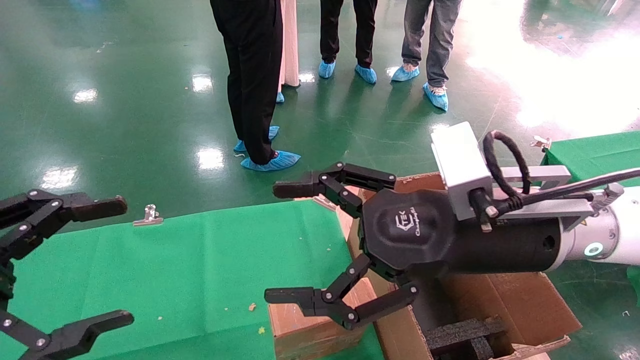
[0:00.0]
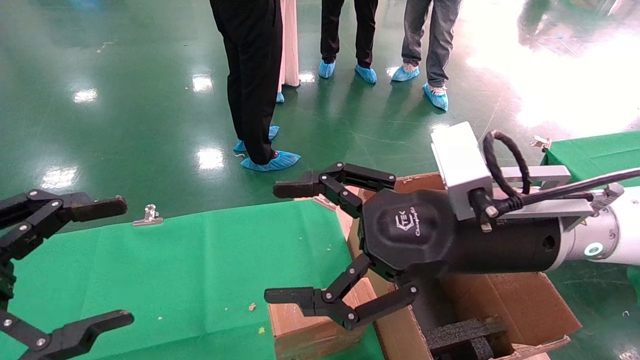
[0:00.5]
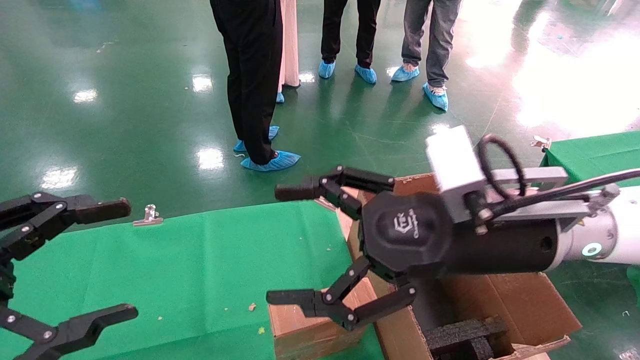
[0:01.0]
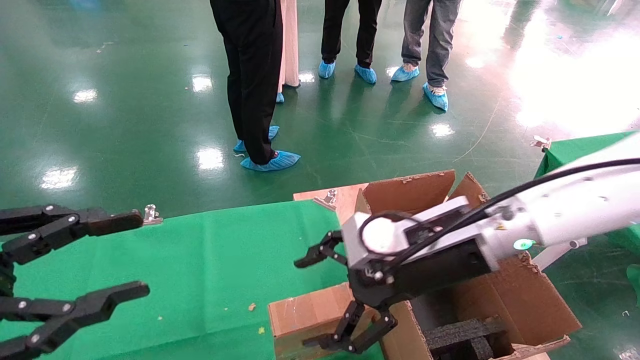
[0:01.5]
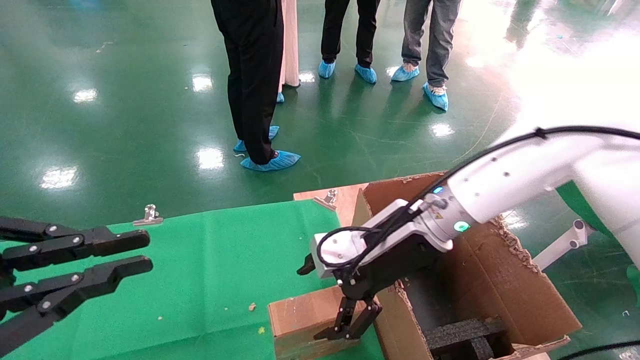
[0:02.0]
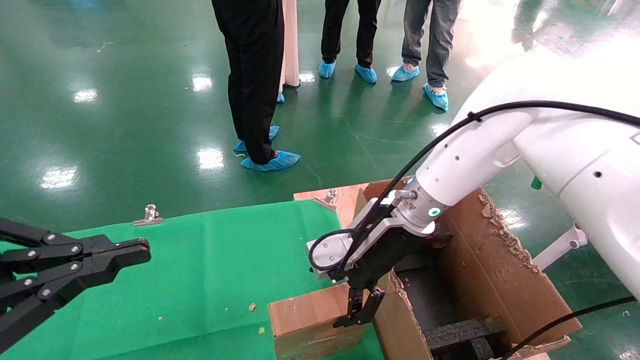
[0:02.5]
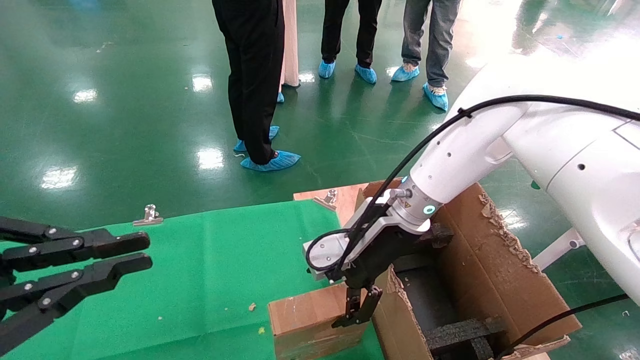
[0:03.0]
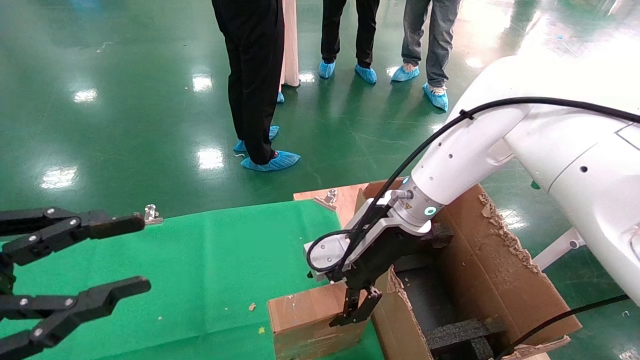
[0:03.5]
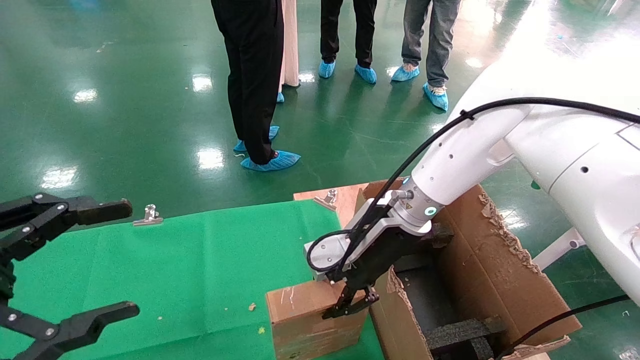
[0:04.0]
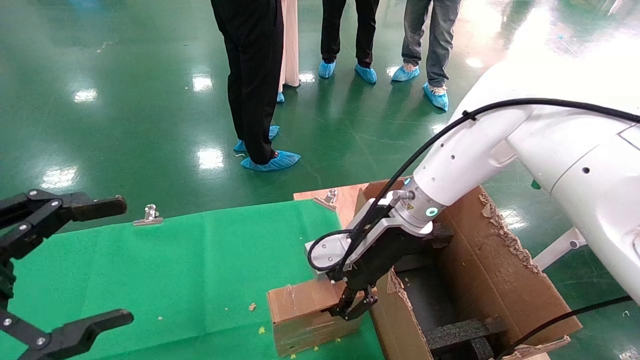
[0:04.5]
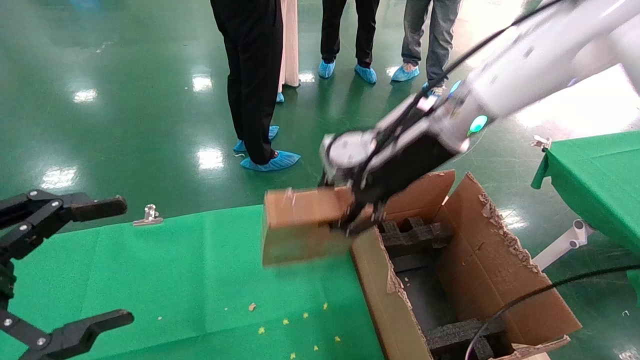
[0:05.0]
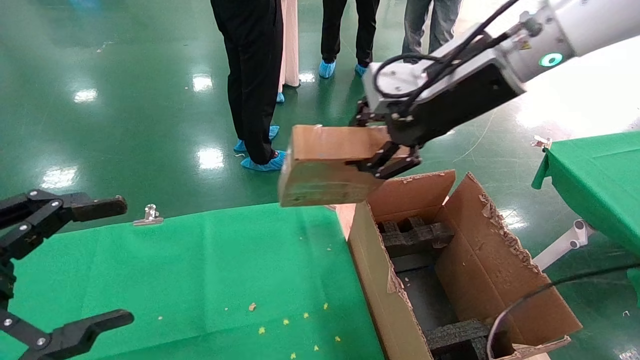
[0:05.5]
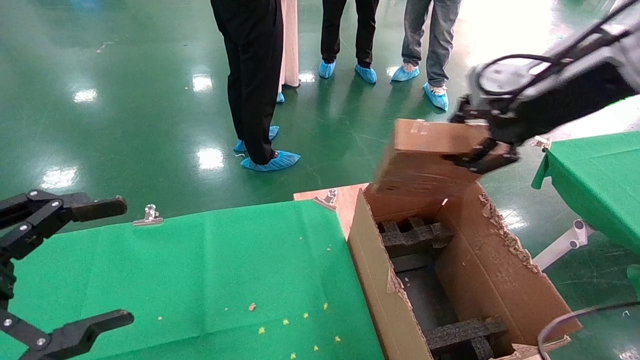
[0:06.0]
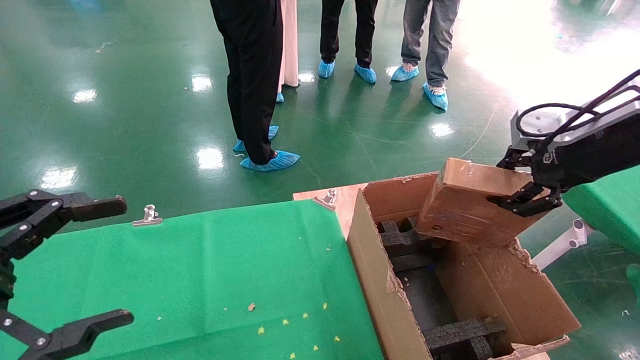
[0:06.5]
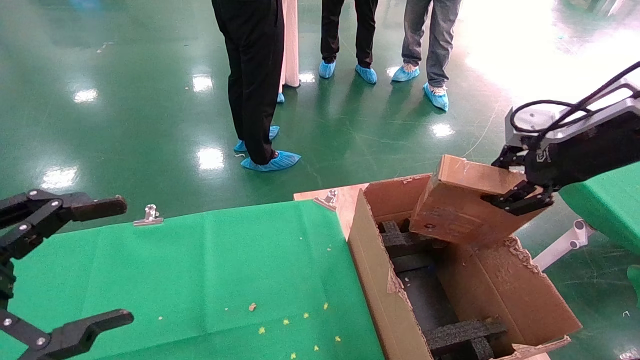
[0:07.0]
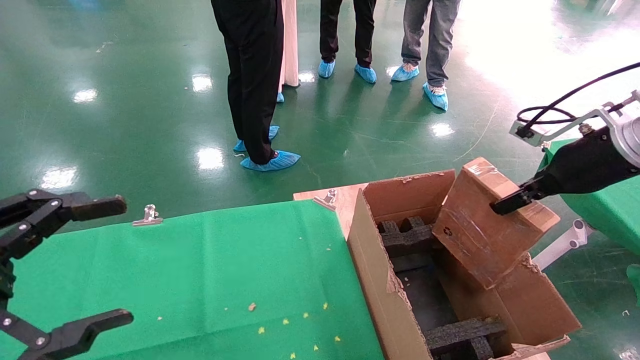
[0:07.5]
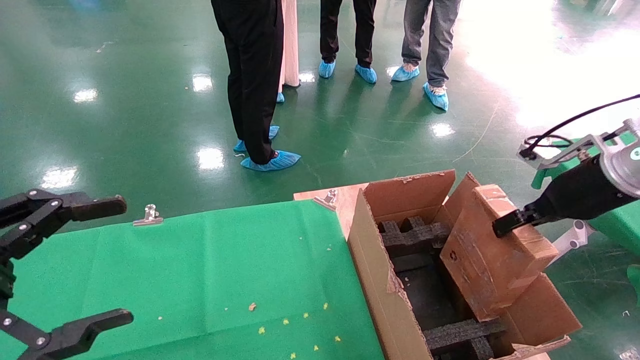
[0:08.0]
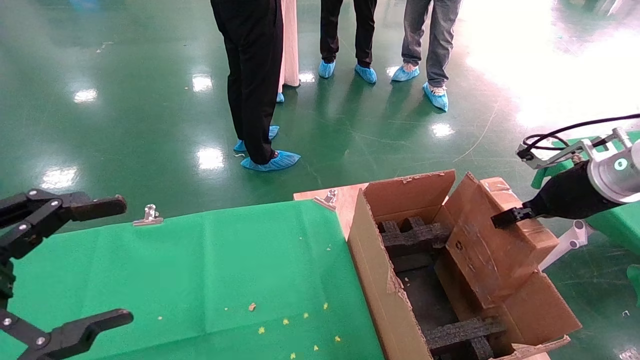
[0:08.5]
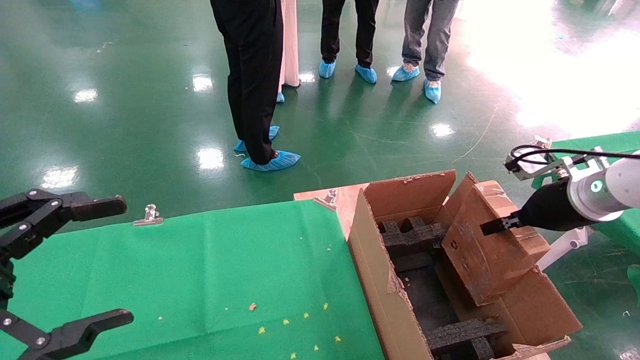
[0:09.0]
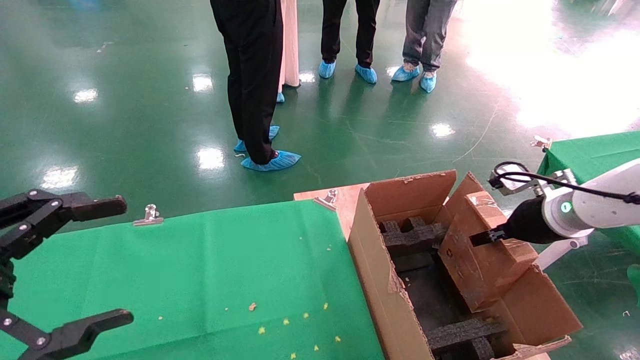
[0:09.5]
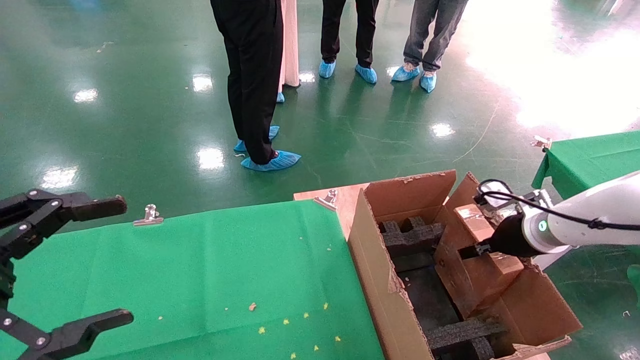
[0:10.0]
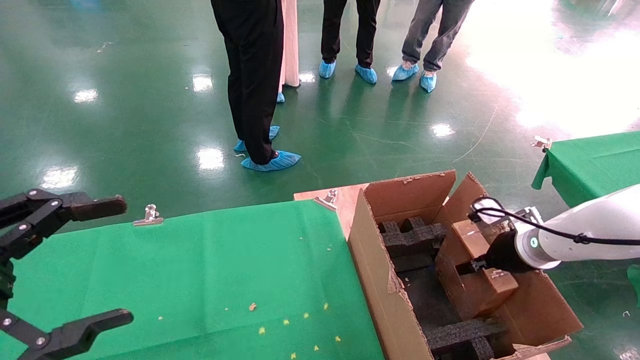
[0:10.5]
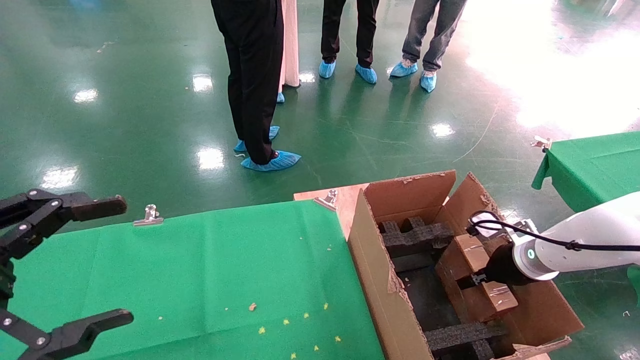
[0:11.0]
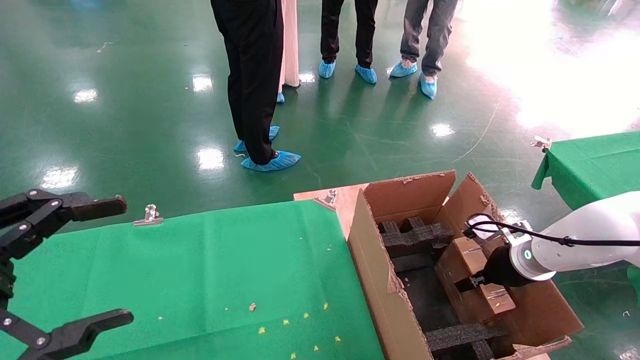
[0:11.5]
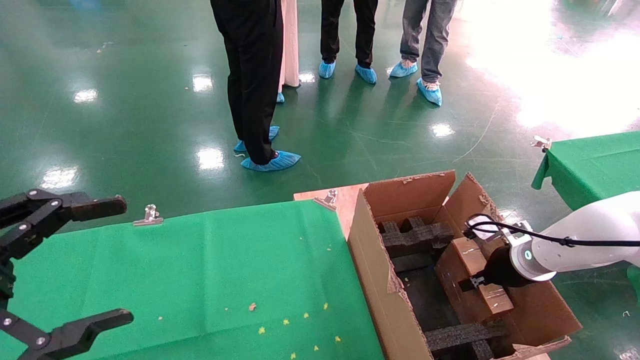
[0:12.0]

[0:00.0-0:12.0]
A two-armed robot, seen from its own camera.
Task of the whole recording: using a robotic arm to pick up a cardboard box and palace it the carton.
Step, 0:01.5 to 0:04.0: Pick up the mouse and the power cord paper box.
0:00.0 to 0:02.0: The left gripper closes; the right gripper is displaced forward and downward by approximately 15 cm.
0:02.0 to 0:04.0: The left gripper opens up. The right gripper closes its fingers.
0:04.0 to 0:06.0: The right gripper moves to the right, upward and backward, roughly 30 cm, and closes.
0:06.0 to 0:08.0: The right gripper travels downward and to the right by roughly 15 cm.
0:08.0 to 0:10.0: The right gripper goes roughly 10 cm downward and forward.
0:10.0 to 0:12.0: The right gripper moves downward, some 5 cm.

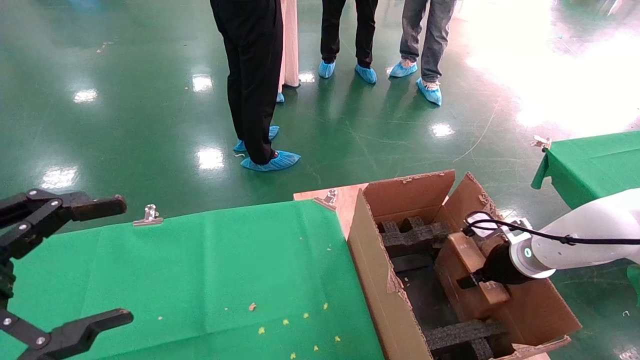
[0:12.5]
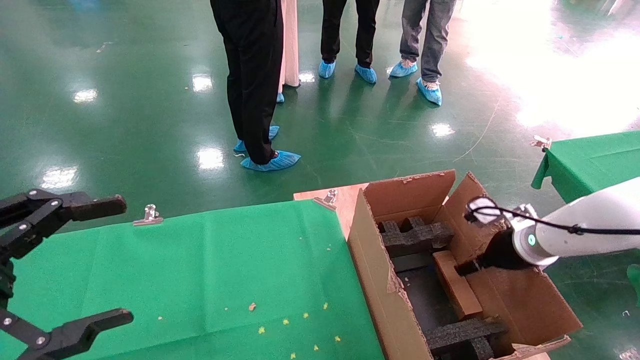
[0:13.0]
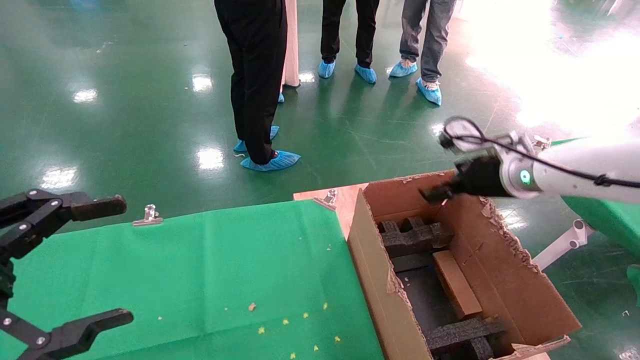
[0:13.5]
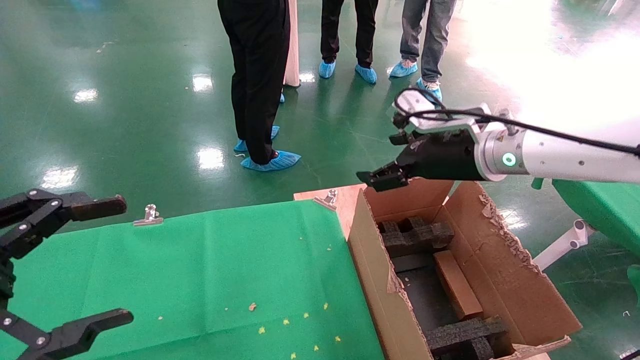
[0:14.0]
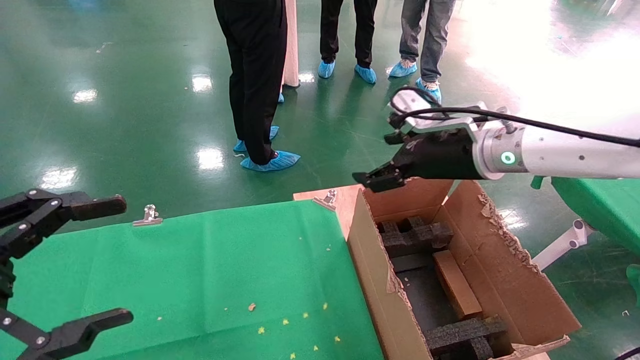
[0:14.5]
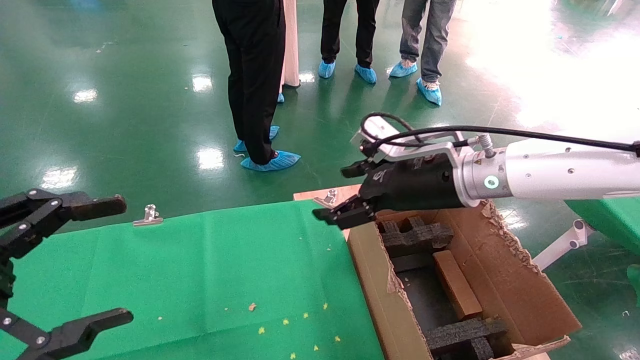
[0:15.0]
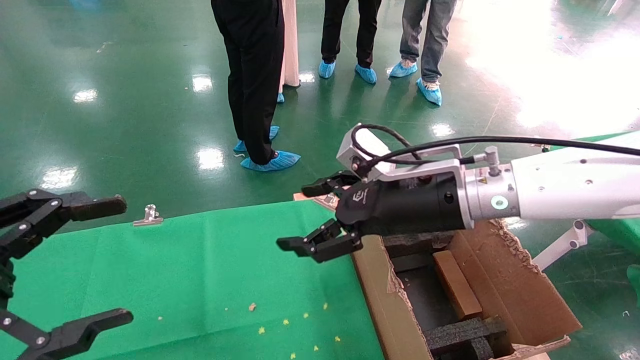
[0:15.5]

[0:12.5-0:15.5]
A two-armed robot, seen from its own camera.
Task of the whole recording: using a robotic arm to pick up a cardboard box and palace it the carton.
0:12.5 to 0:14.0: The right gripper travels upward and to the left by some 25 cm, and opens its fingers.
0:14.0 to 0:15.5: The right gripper goes approximately 10 cm to the left and backward.

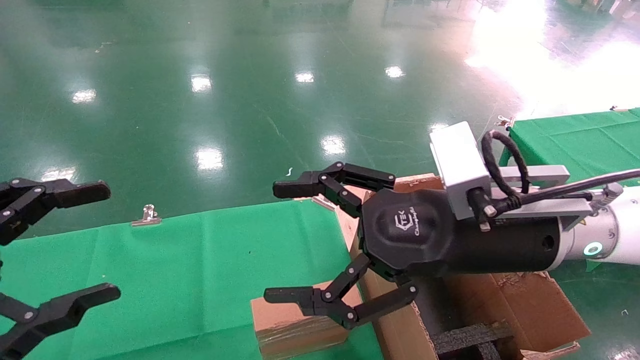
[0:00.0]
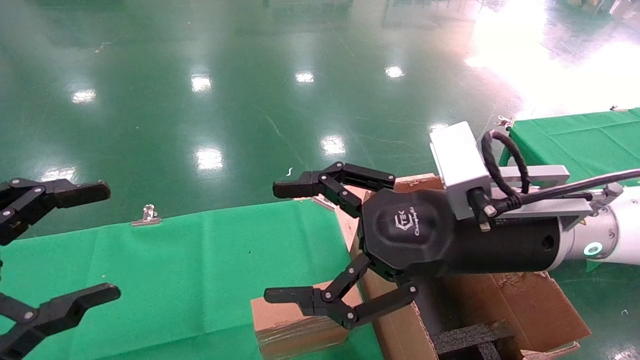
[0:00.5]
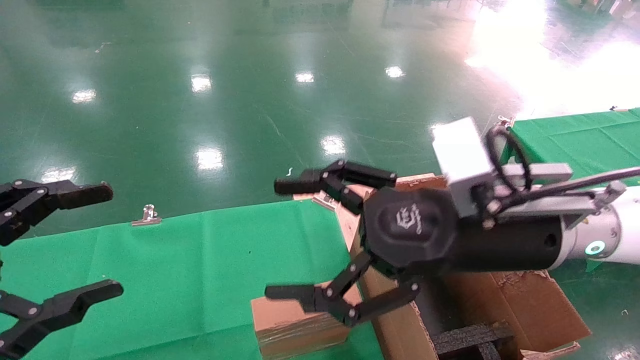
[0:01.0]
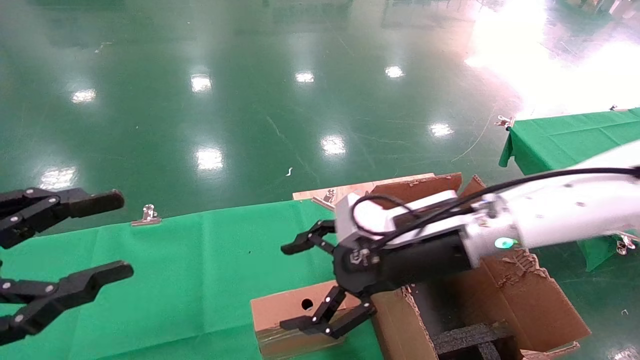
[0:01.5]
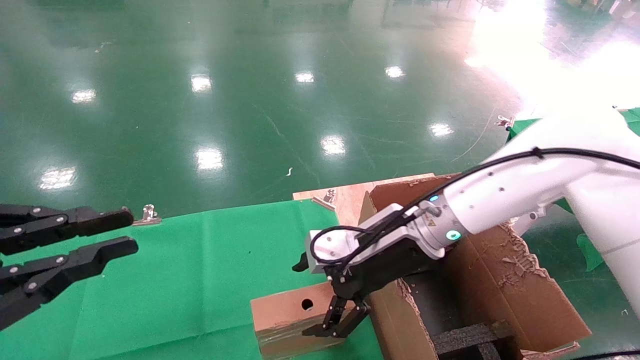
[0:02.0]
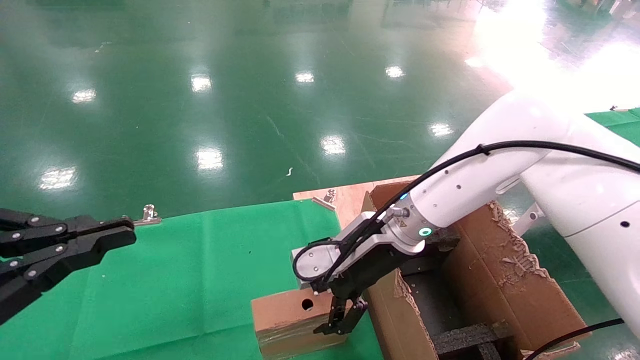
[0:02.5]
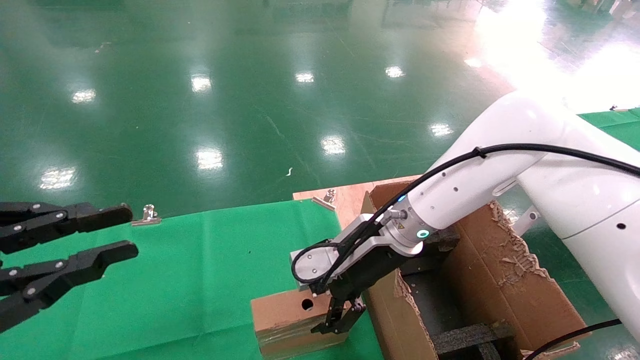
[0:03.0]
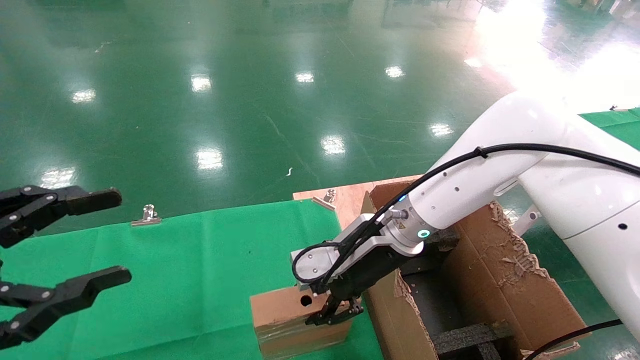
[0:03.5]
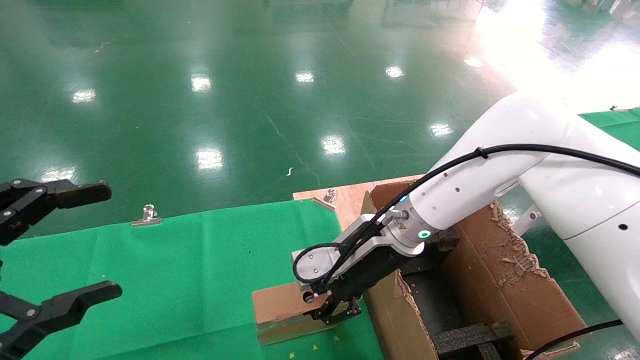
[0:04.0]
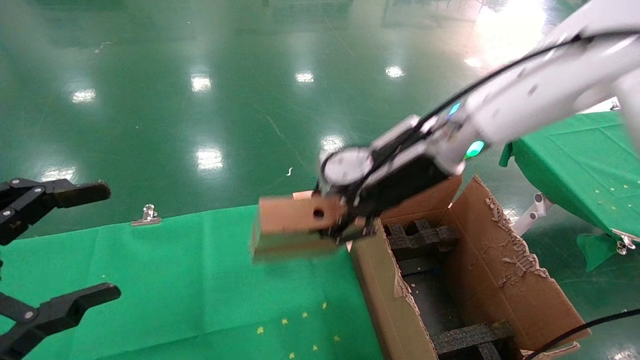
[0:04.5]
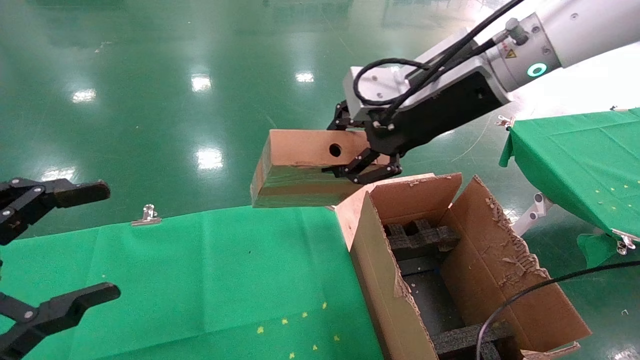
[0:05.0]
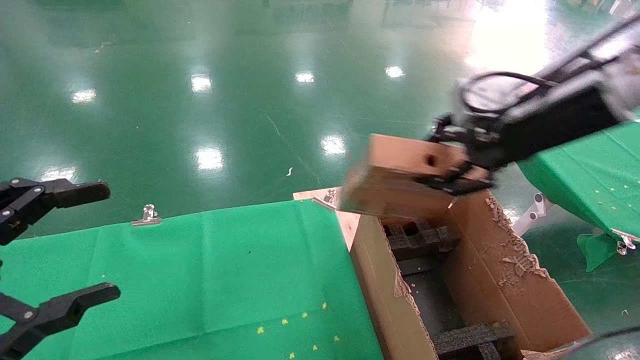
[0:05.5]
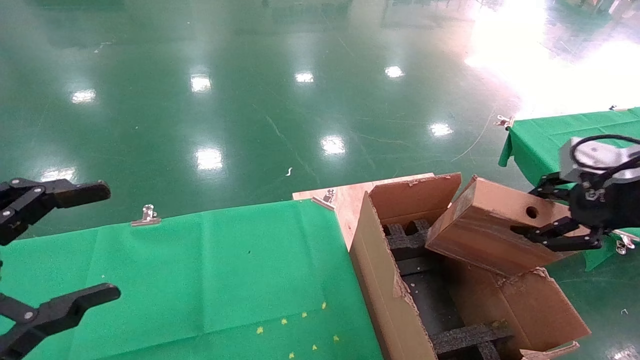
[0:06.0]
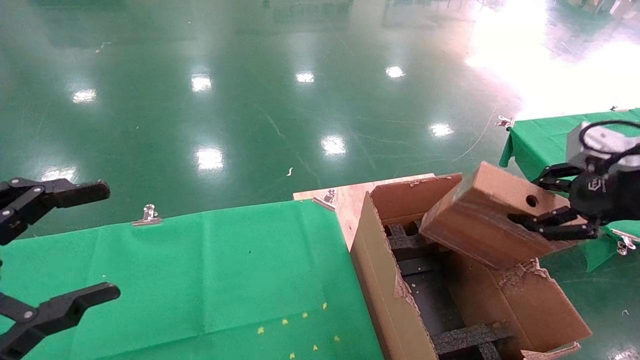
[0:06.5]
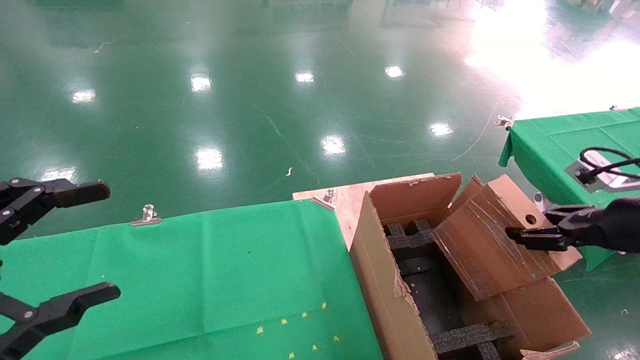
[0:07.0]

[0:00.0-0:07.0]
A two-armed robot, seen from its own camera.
Task of the whole recording: using a robotic arm to pick up a cardboard box and palace it the carton.
Step, 0:01.5 to 0:04.0: Pick up the mouse and the power cord paper box.
0:00.0 to 0:02.0: The left gripper closes. The right gripper moves forward and downward, approximately 15 cm.
0:02.0 to 0:03.5: The right gripper closes.
0:03.5 to 0:05.0: The right gripper heads upward and to the right, covering some 20 cm, and closes up. The left gripper opens up.
0:05.0 to 0:07.0: The right gripper shifts about 30 cm to the right and downward.
